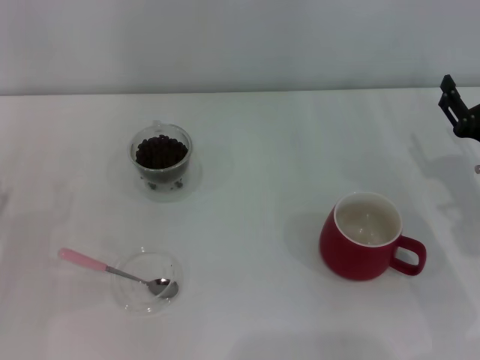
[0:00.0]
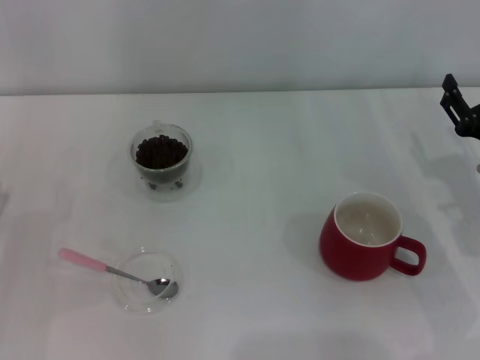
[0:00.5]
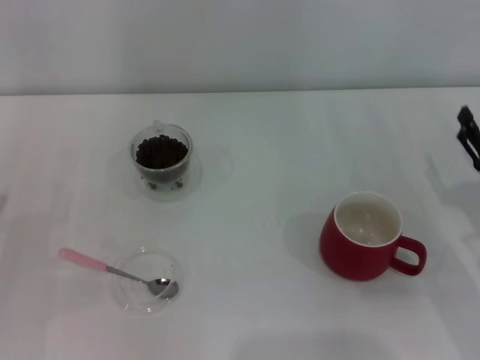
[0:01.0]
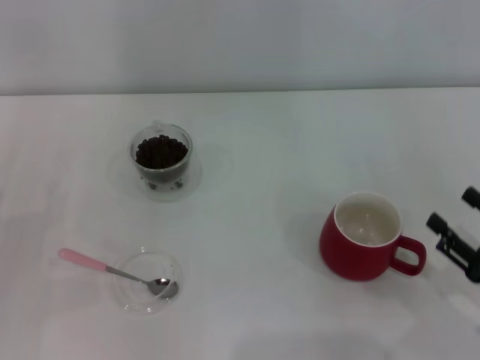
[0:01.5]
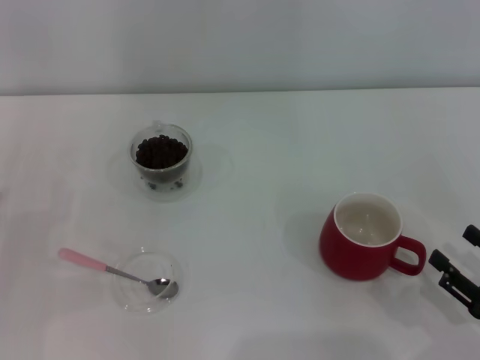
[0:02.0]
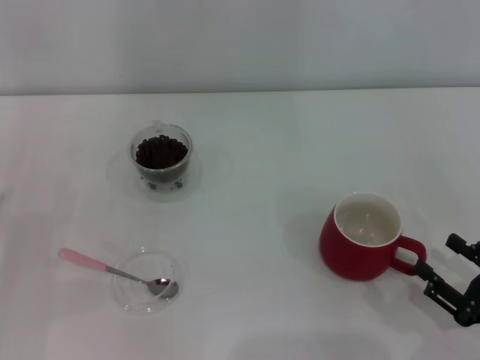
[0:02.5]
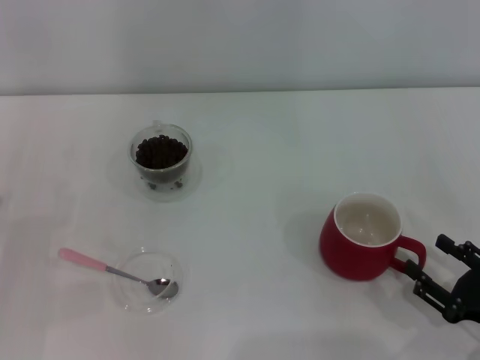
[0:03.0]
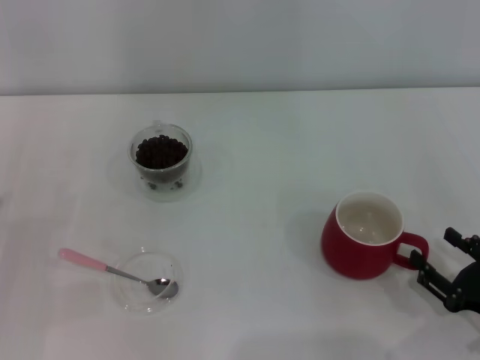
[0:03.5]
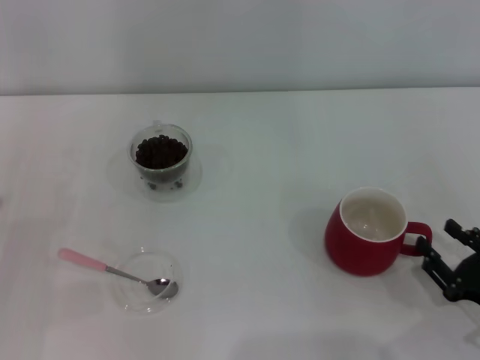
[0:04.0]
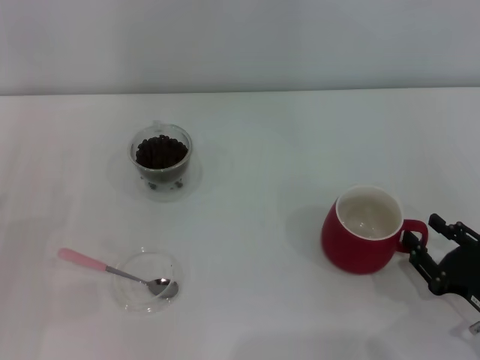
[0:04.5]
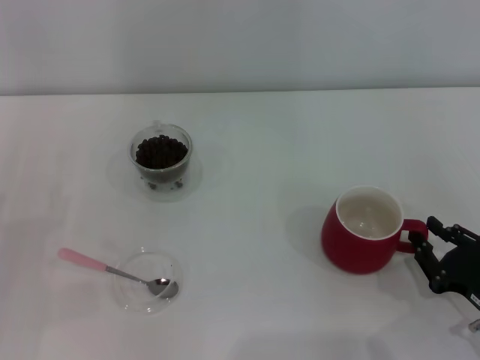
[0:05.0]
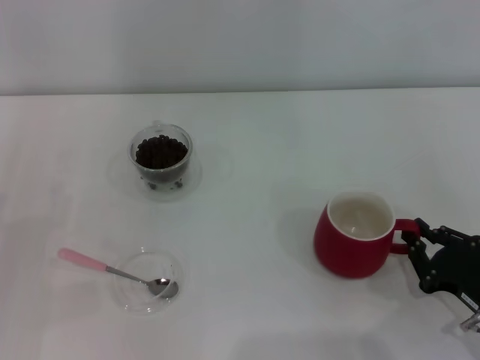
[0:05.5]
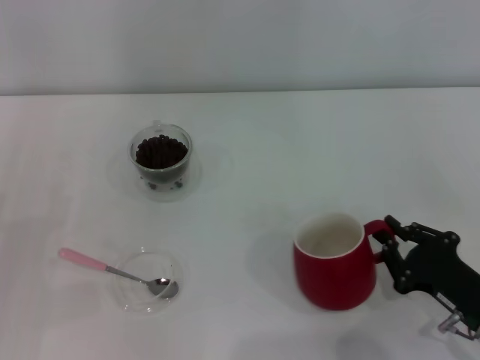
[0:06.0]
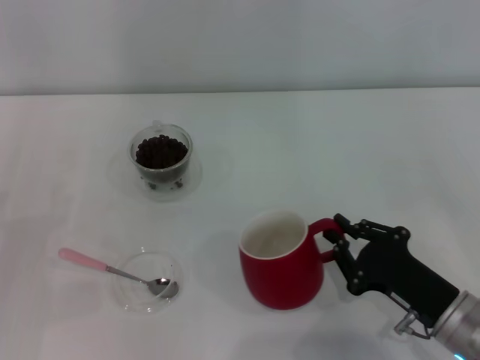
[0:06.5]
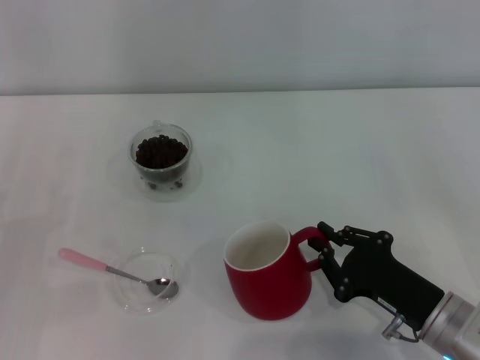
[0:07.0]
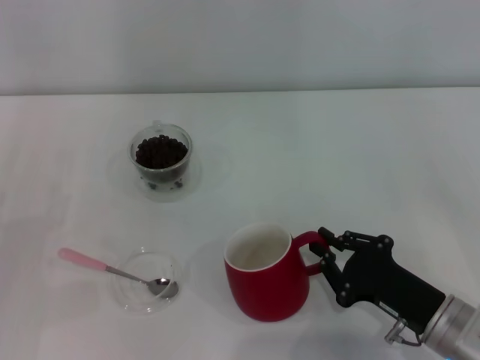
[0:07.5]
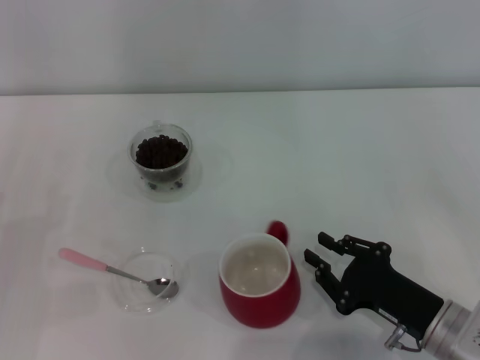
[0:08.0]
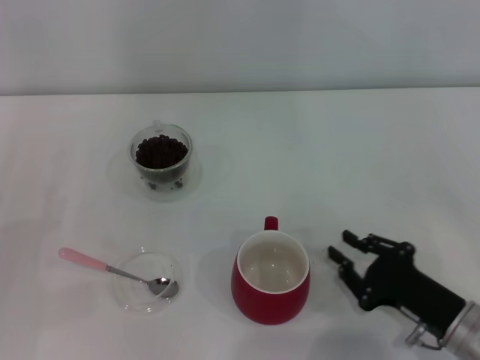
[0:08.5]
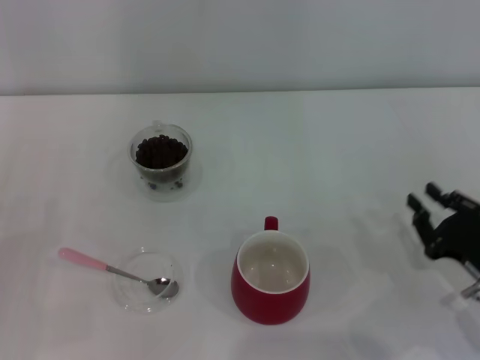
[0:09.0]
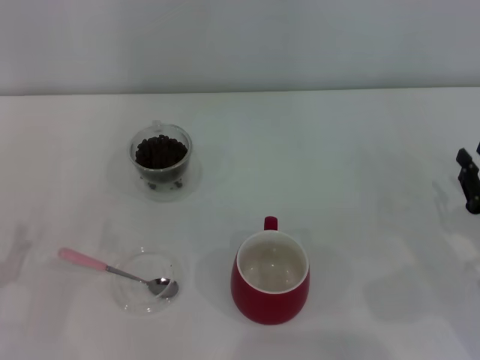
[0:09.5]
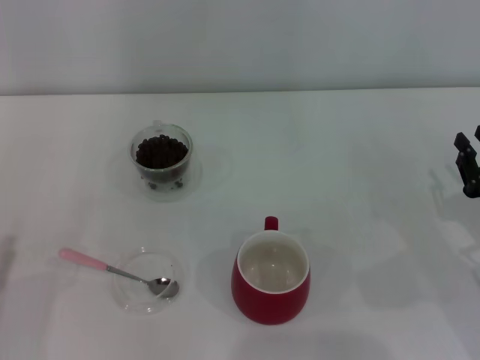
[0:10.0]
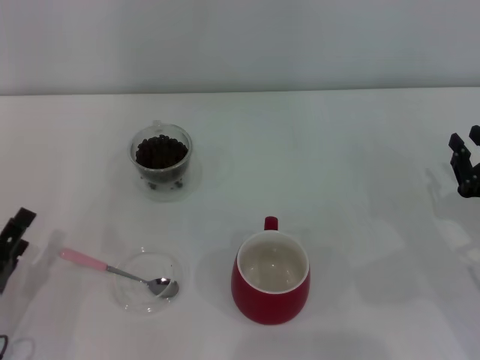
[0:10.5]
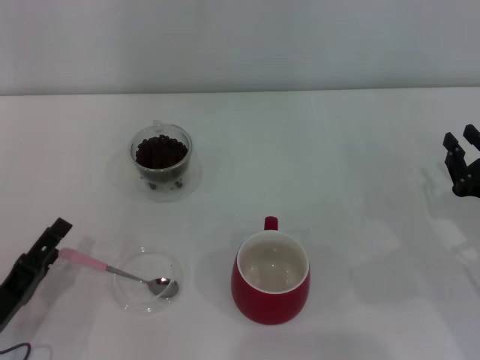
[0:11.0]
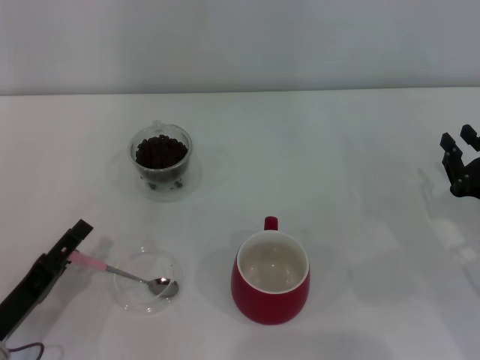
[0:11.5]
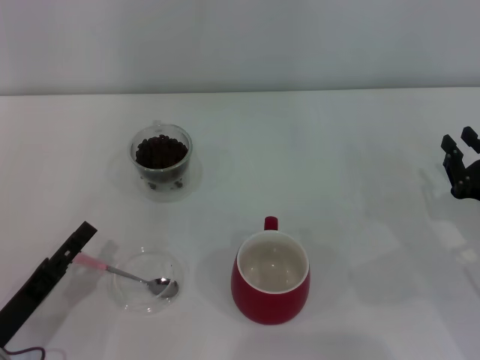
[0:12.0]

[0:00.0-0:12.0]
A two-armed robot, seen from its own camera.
Task of the whole recording: Use a pink spoon to take out the coffee beans from the glass and pour them into the red cup.
0:00.0 to 0:02.0: The right gripper shifts roughly 15 cm backward.
0:02.0 to 0:04.0: The grippers stay close to where they were, moving slightly.
0:04.0 to 0:06.0: The right gripper closes its fingers.
0:06.0 to 0:08.0: The grippers move only a little.
0:08.0 to 0:10.0: The right gripper shifts some 10 cm to the right, while the left gripper heads backward, covering about 10 cm.
0:10.0 to 0:12.0: The left gripper goes approximately 5 cm to the right.

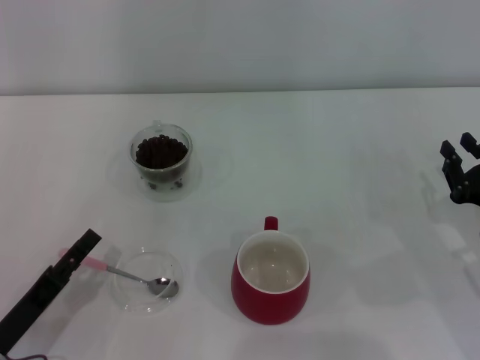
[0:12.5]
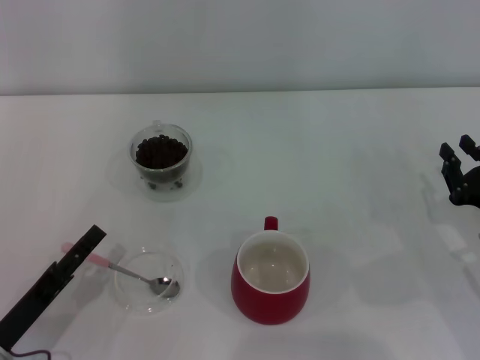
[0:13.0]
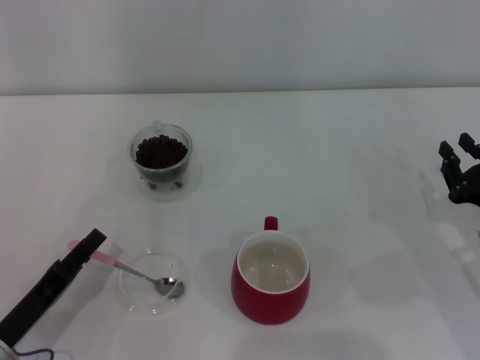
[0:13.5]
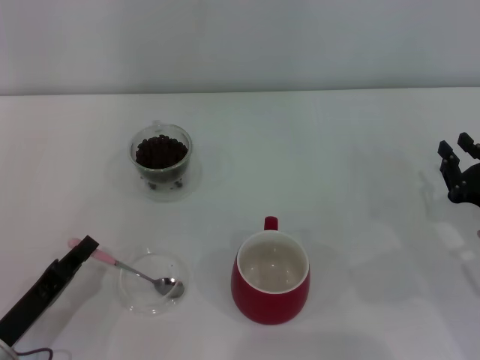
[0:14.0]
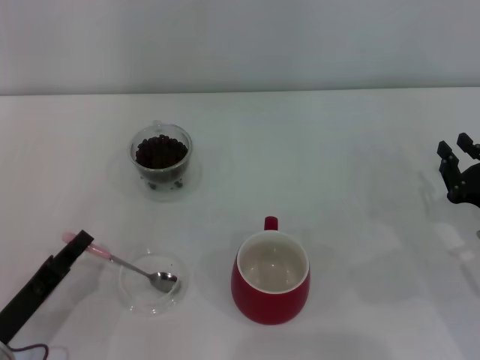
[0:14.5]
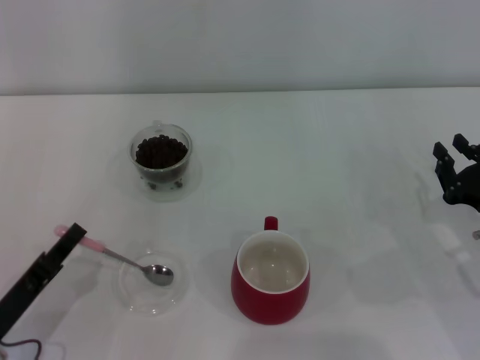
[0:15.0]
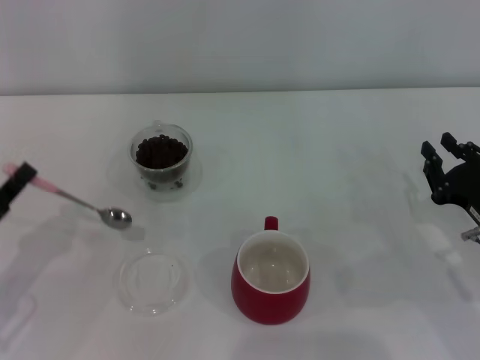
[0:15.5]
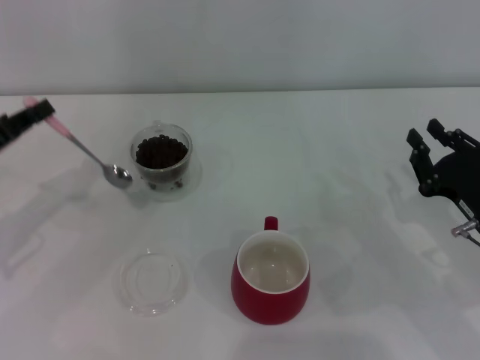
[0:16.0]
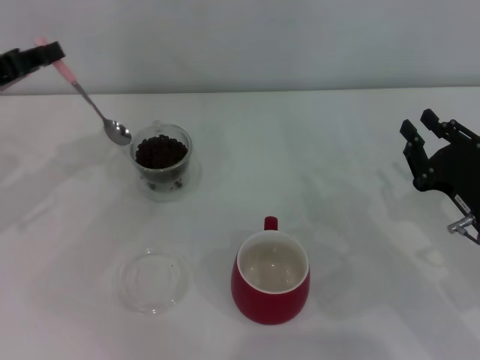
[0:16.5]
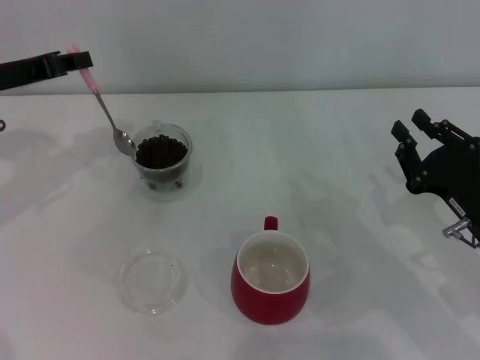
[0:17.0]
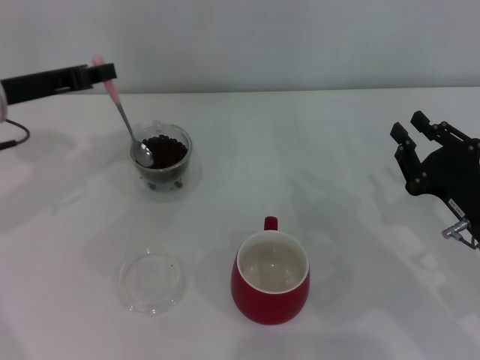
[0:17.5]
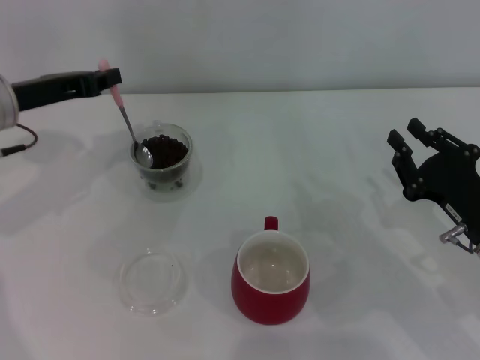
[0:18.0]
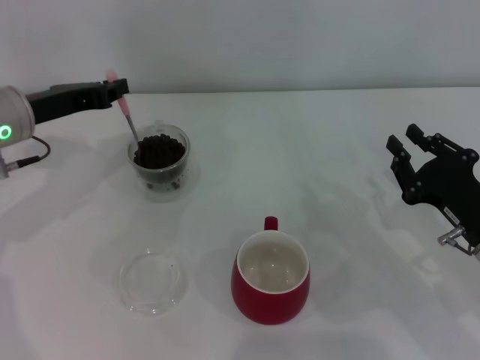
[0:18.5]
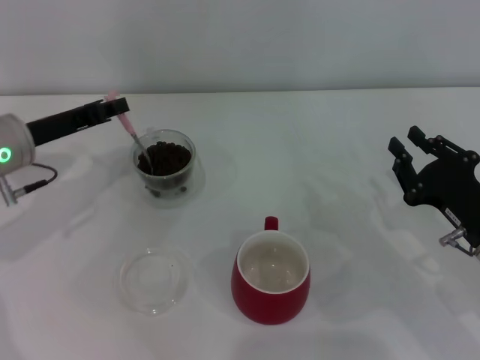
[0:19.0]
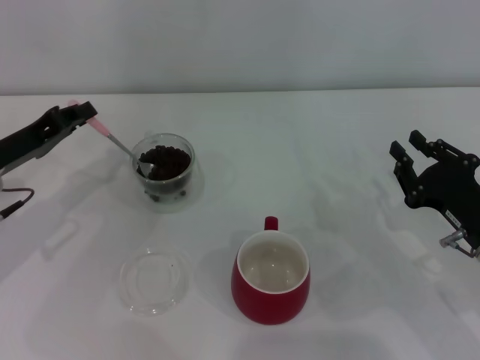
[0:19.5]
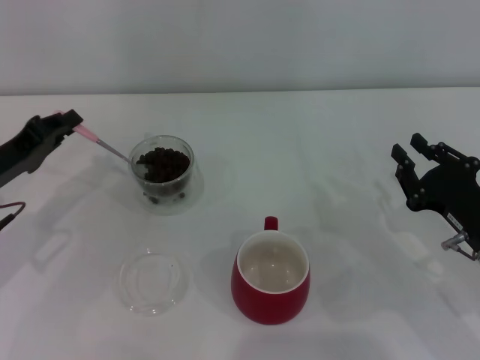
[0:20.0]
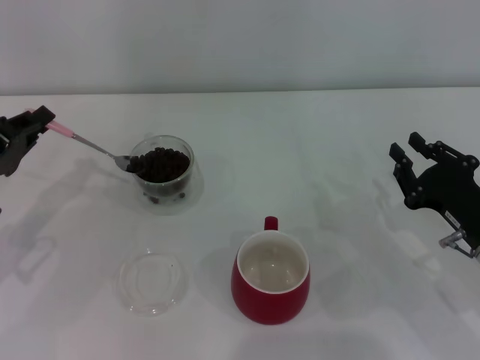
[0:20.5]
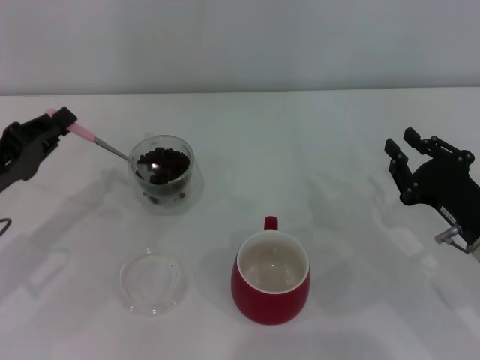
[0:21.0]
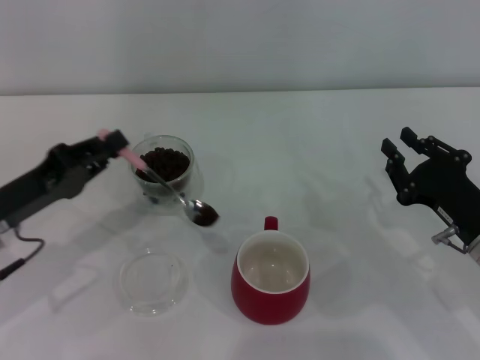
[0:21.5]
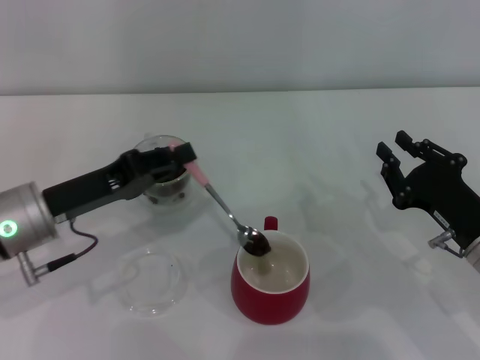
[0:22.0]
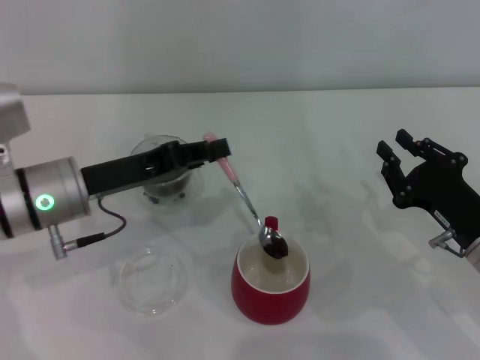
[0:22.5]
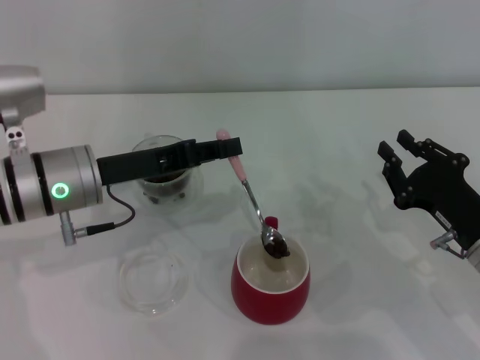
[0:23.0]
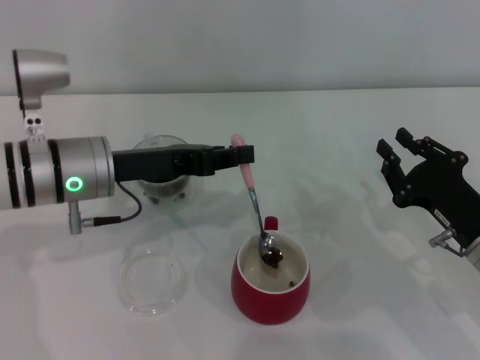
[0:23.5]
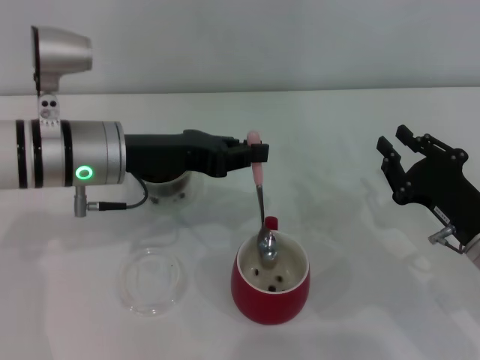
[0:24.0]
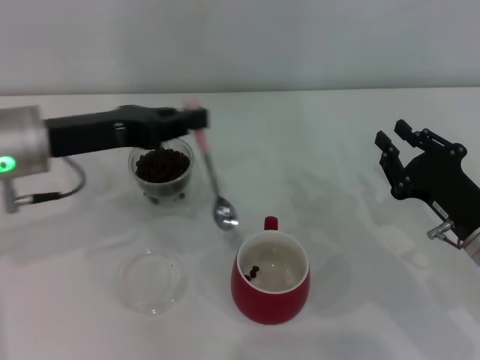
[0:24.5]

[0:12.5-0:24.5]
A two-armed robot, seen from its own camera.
Task of the whole recording: Use a pink spoon to take out the coffee beans from the glass and pour them into the red cup.
Step, 0:12.5 to 0:15.0: Pick up the spoon with the right gripper.
0:12.5 to 0:14.5: The left gripper closes its fingers.
0:14.5 to 0:16.5: The left gripper moves forward and upward, approximately 25 cm.
0:16.5 to 0:18.5: The left gripper goes roughly 5 cm to the right.
0:18.5 to 0:20.5: The left gripper travels backward, to the left and downward by some 10 cm.
0:20.5 to 0:22.5: The left gripper shifts about 10 cm to the right.
0:22.5 to 0:24.5: The left gripper goes about 5 cm upward.

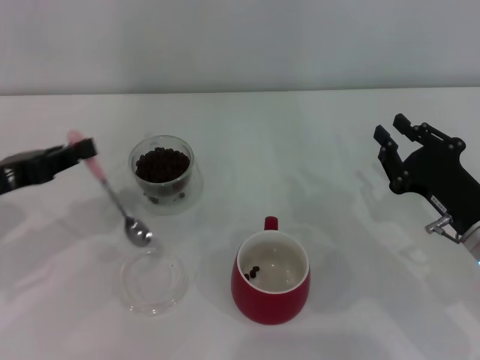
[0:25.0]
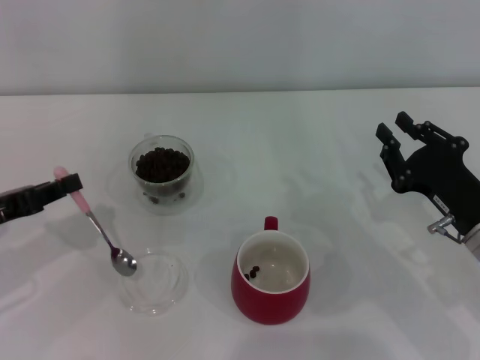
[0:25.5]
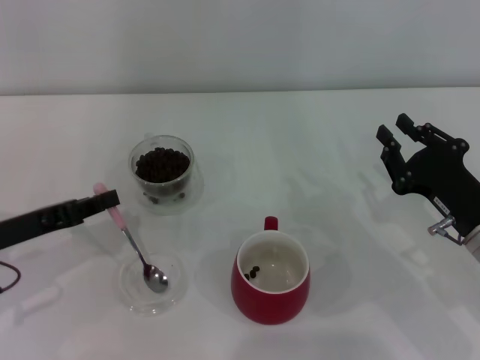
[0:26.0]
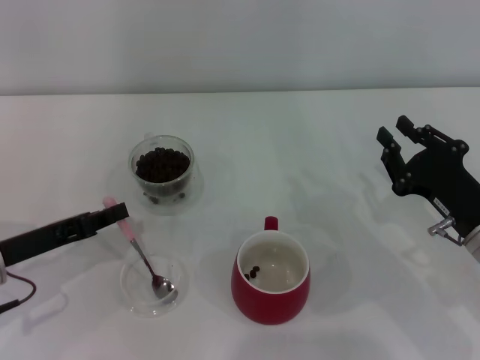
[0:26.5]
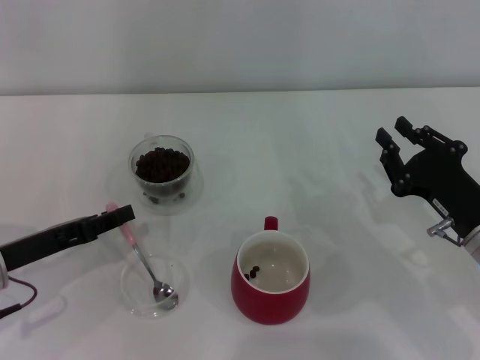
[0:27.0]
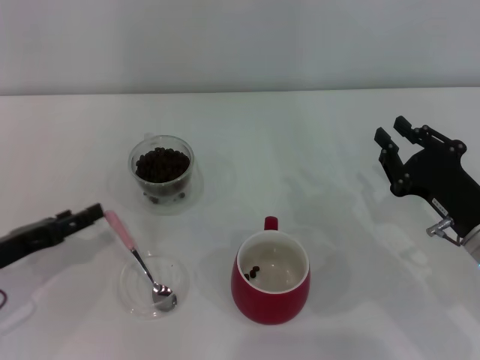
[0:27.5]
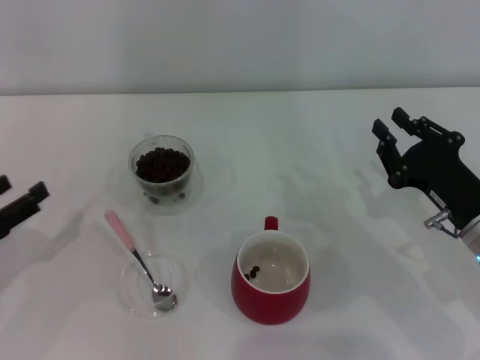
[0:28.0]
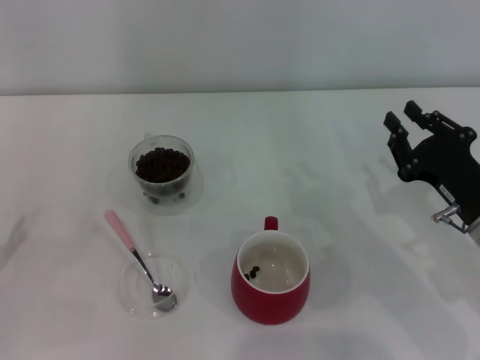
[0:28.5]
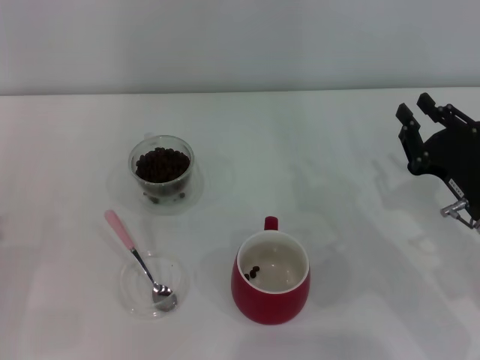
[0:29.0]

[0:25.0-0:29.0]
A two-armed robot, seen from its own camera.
Task of the whole recording: Use a pink spoon to take out the coffee beans from the glass and pour them into the red cup.
0:25.0 to 0:27.0: The left gripper travels downward by approximately 5 cm.
0:27.0 to 0:29.0: The left gripper goes roughly 10 cm to the left and backward, and opens.
